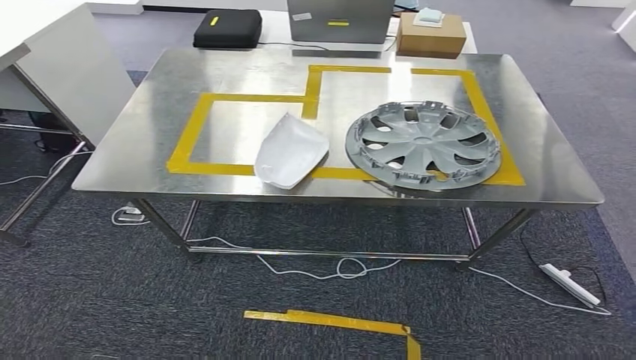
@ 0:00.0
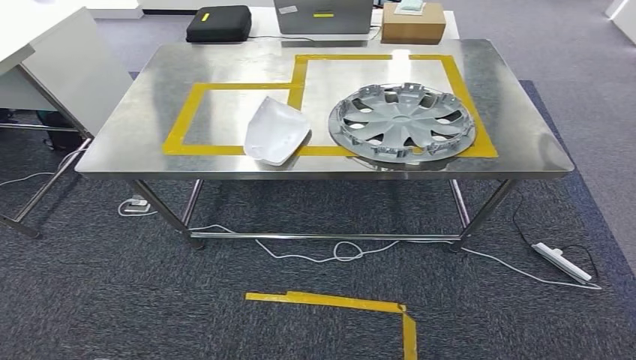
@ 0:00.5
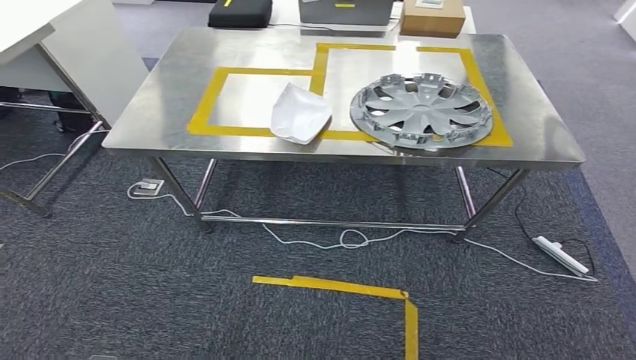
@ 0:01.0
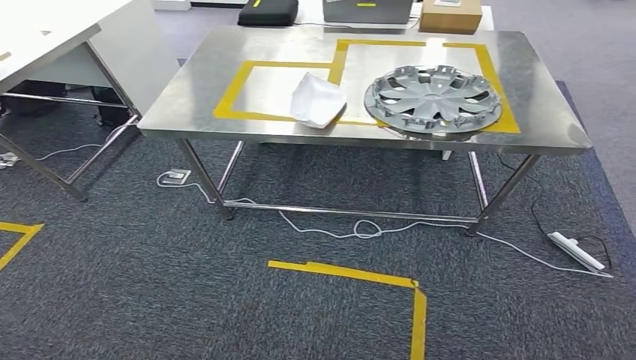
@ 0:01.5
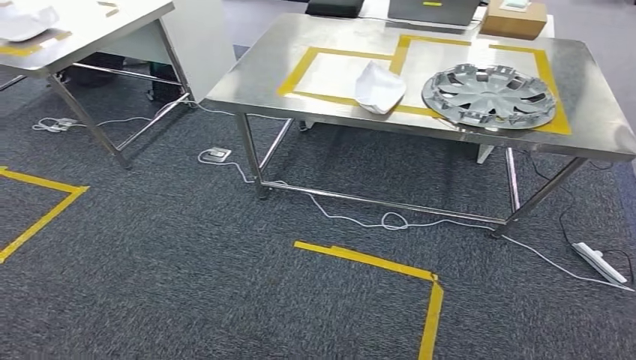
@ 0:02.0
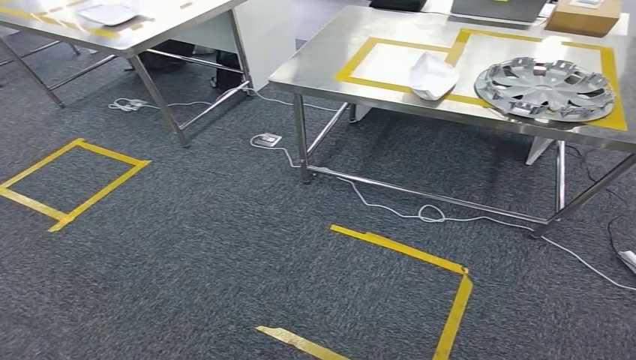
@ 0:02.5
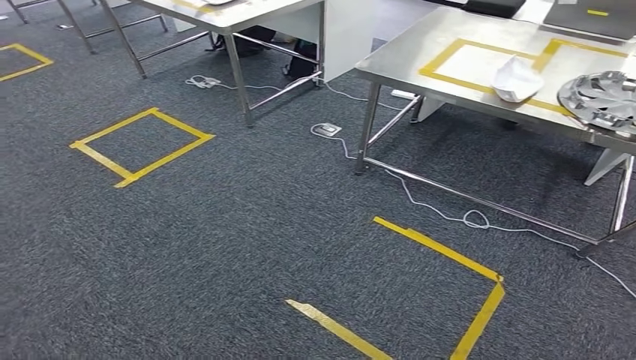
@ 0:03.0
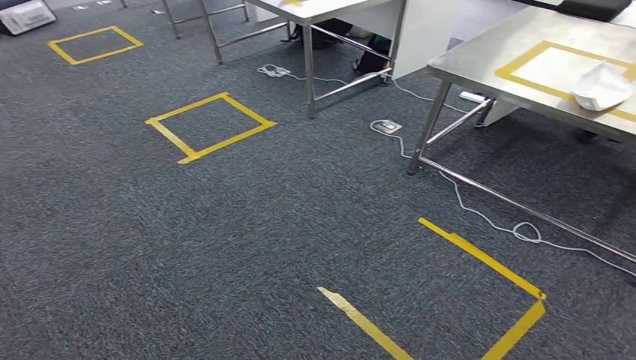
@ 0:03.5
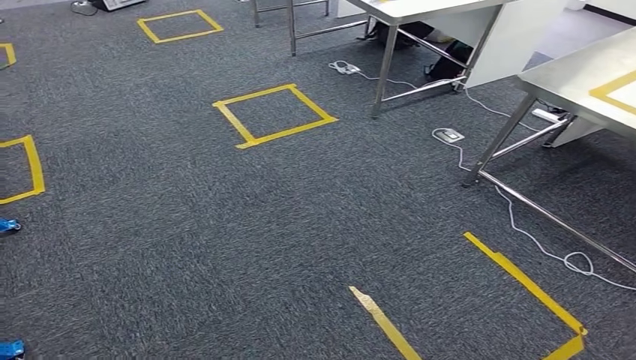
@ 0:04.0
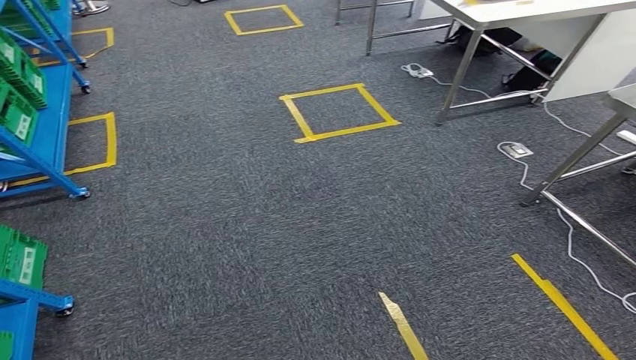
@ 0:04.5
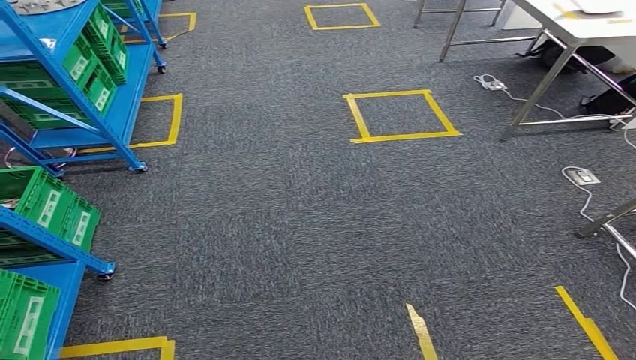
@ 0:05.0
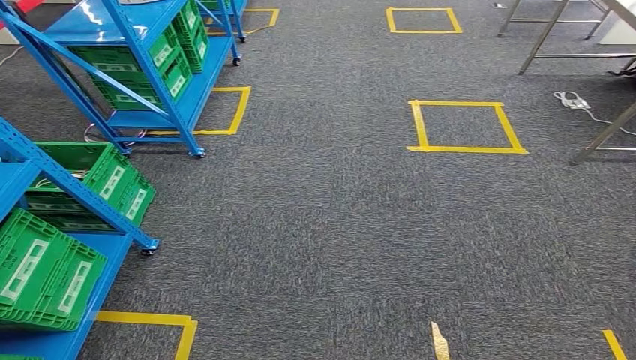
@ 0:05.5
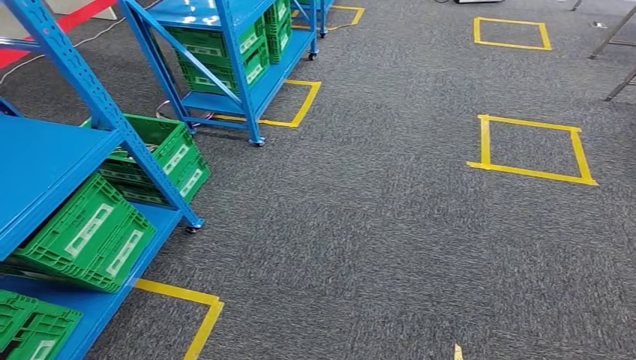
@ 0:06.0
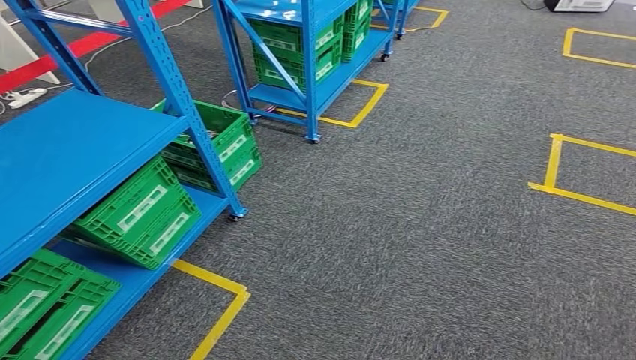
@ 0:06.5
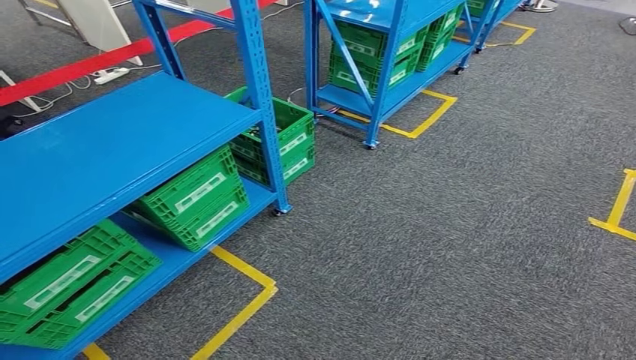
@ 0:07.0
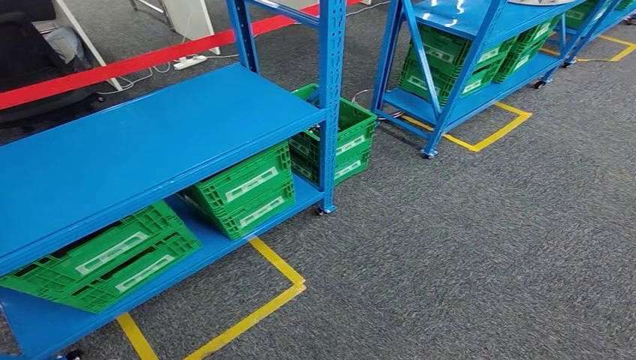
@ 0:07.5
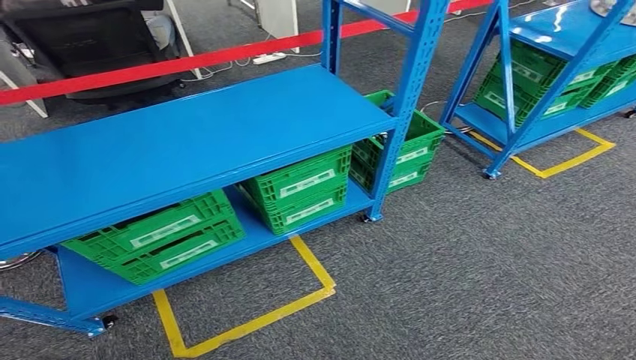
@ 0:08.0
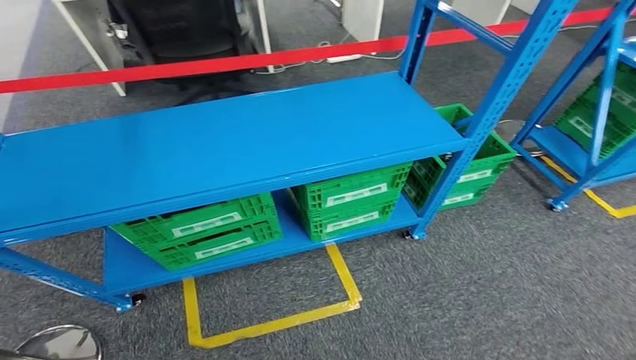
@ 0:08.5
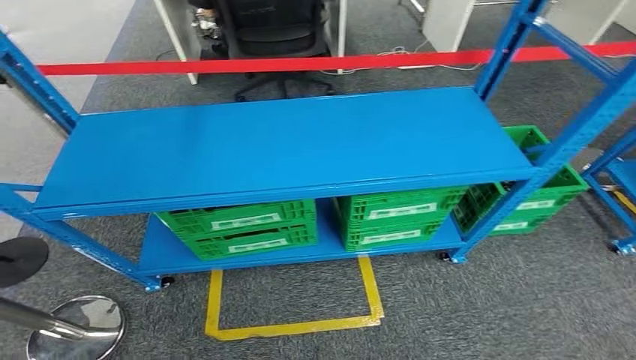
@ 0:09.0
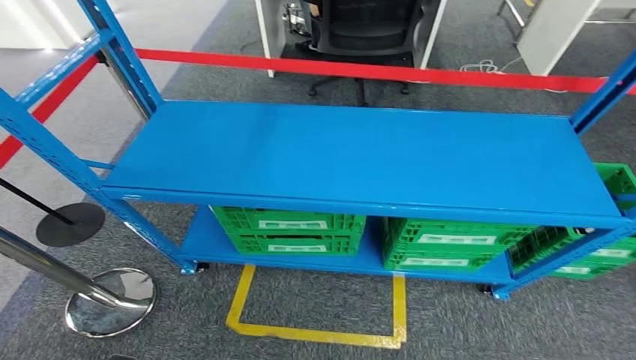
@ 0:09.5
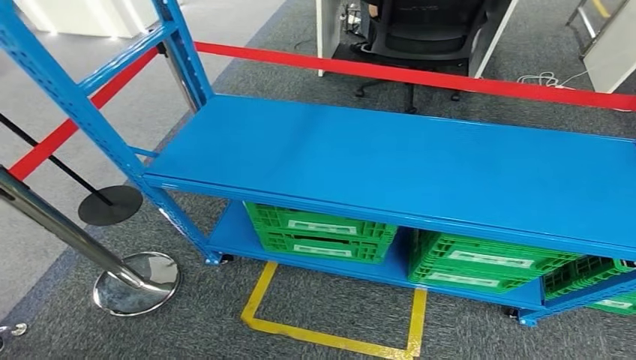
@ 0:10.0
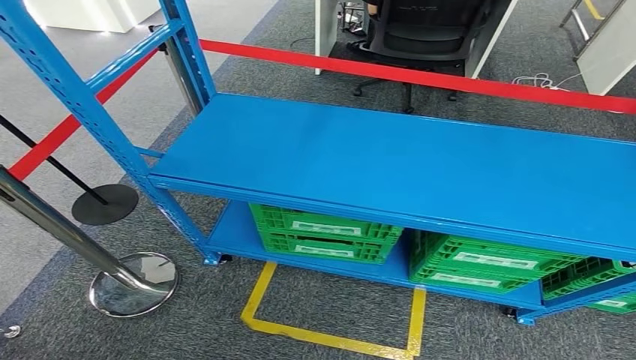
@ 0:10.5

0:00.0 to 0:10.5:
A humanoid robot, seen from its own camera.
Step, 0:00.0 to 0:03.0: Insert the small parts into the corresponding slots on the workbench.

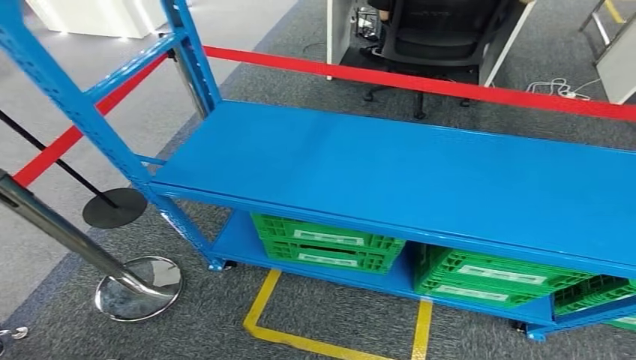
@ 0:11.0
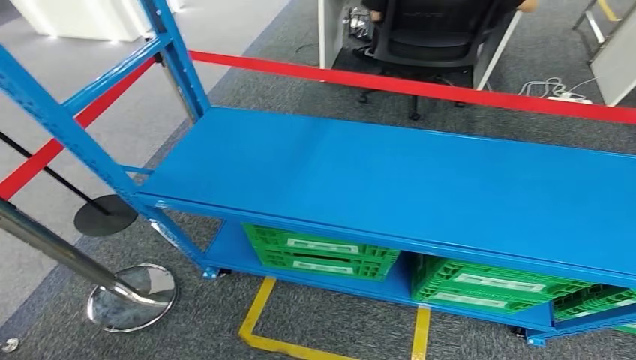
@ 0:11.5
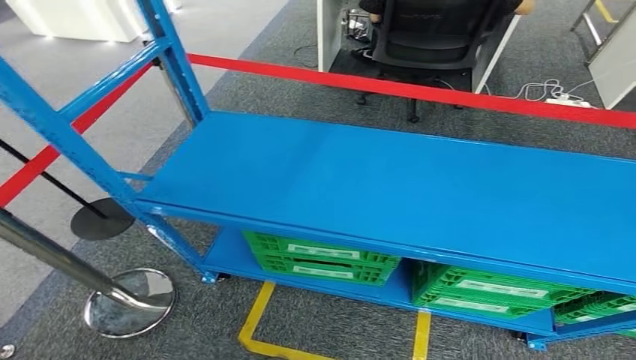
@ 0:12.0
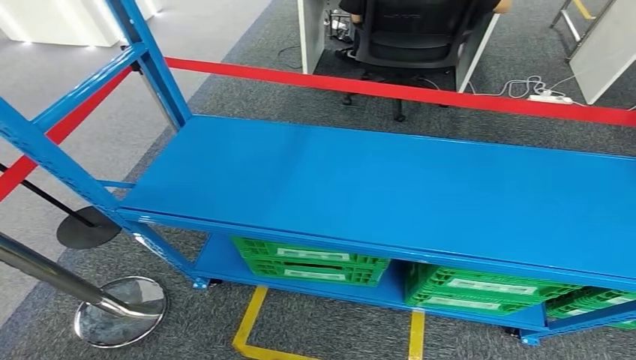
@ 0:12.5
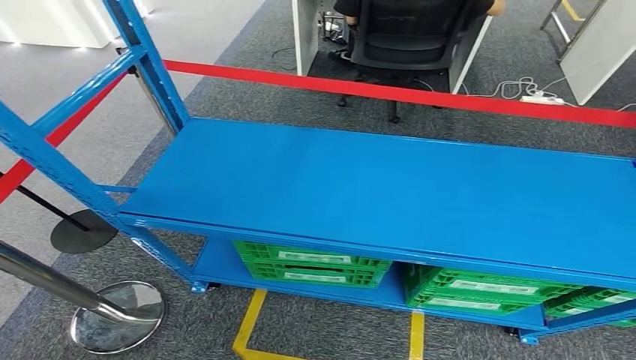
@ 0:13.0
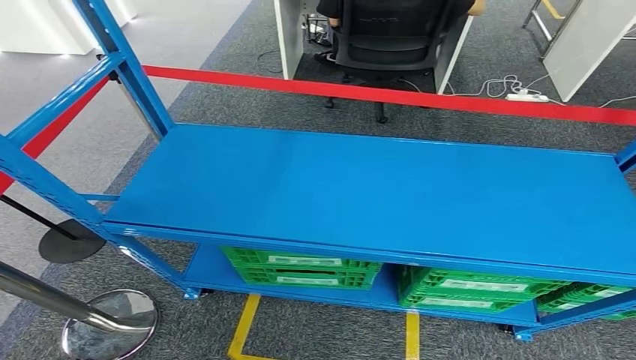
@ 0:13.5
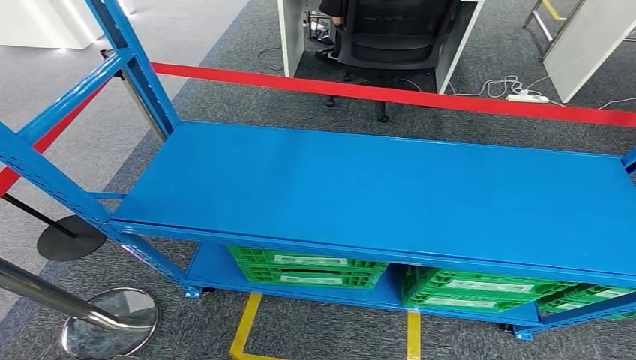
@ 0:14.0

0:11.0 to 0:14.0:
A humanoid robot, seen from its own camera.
Step, 0:11.0 to 0:14.0: Return to the initial position at the workbench.
